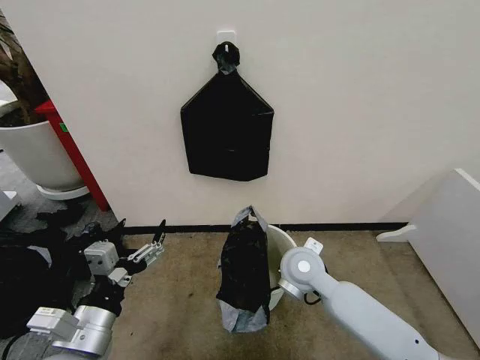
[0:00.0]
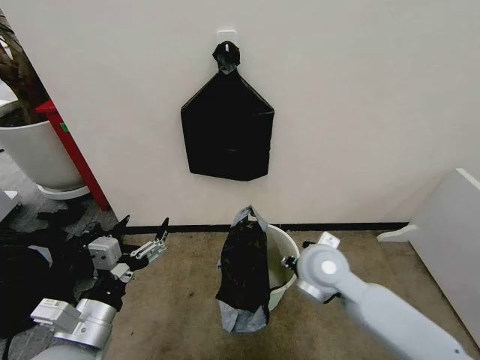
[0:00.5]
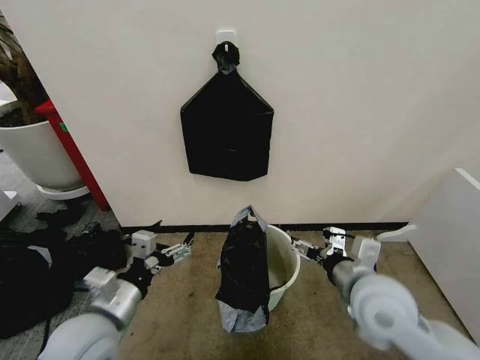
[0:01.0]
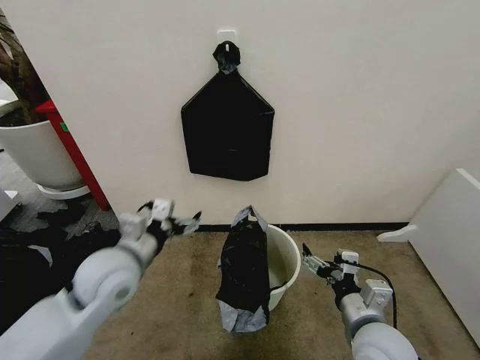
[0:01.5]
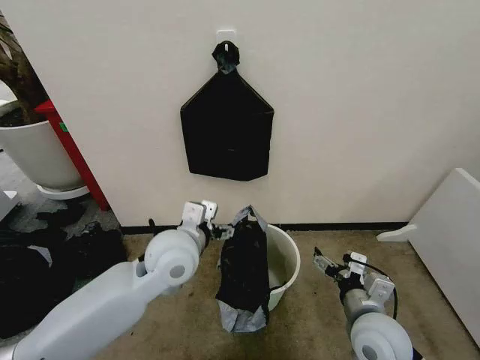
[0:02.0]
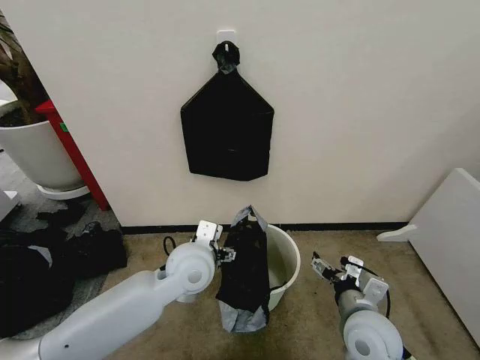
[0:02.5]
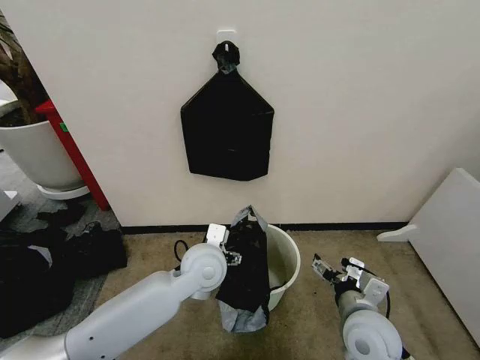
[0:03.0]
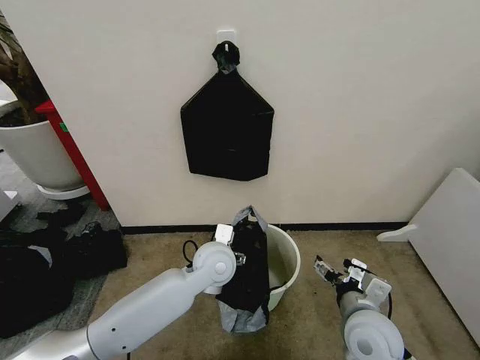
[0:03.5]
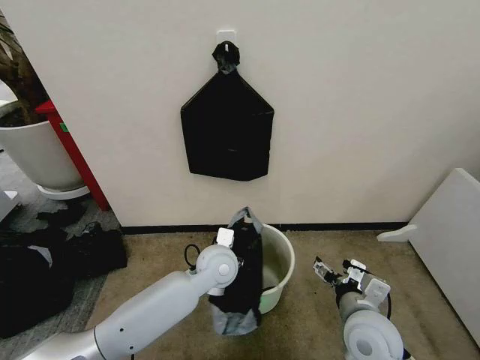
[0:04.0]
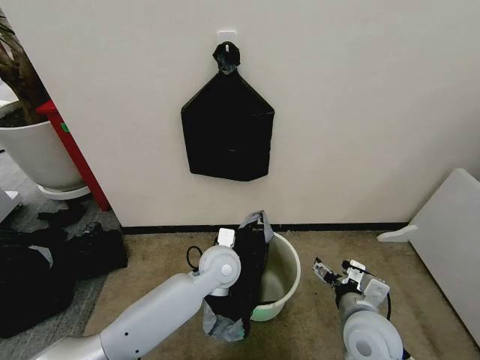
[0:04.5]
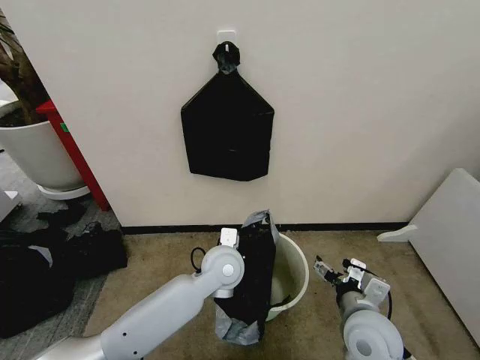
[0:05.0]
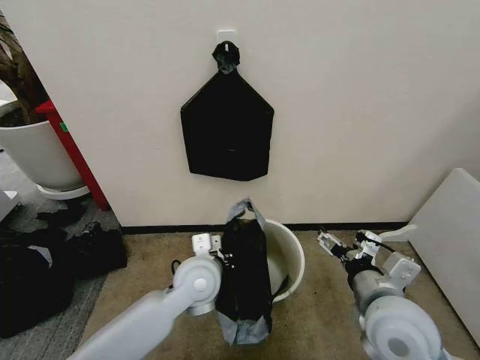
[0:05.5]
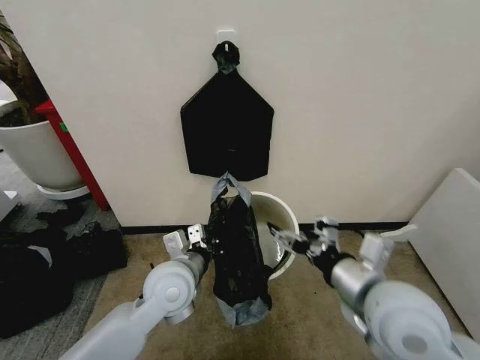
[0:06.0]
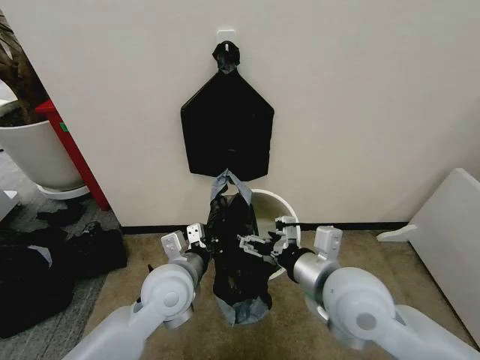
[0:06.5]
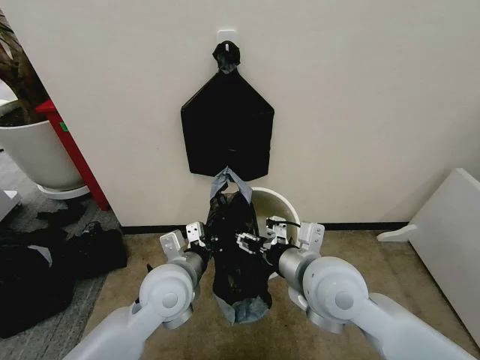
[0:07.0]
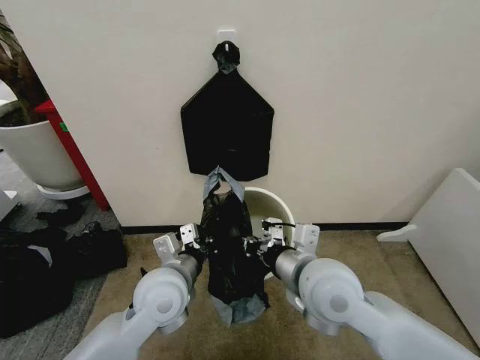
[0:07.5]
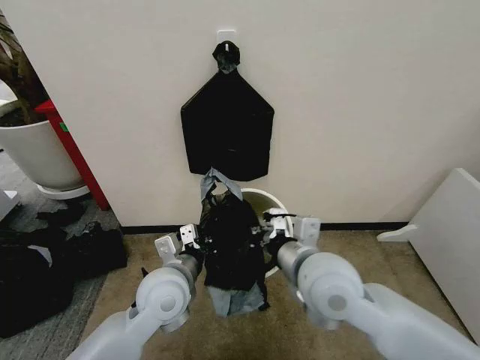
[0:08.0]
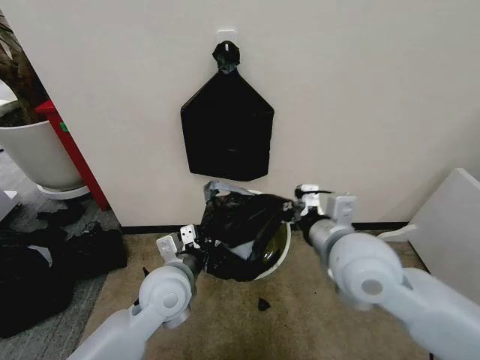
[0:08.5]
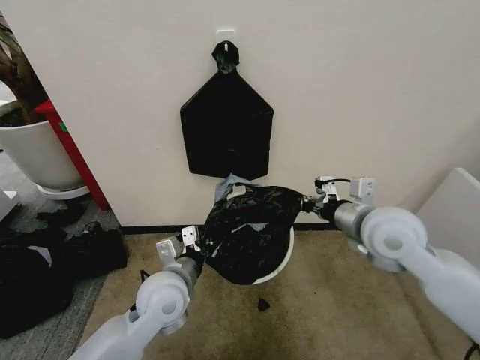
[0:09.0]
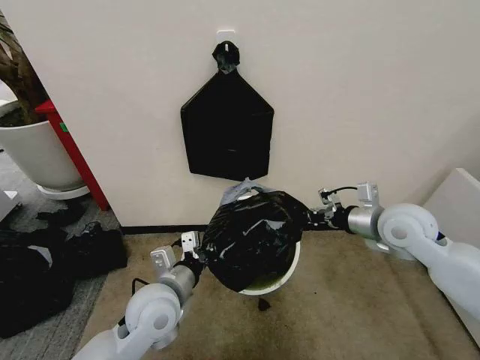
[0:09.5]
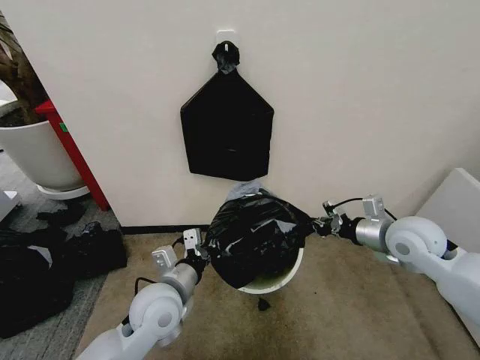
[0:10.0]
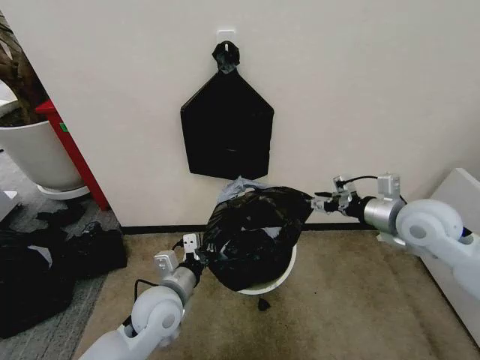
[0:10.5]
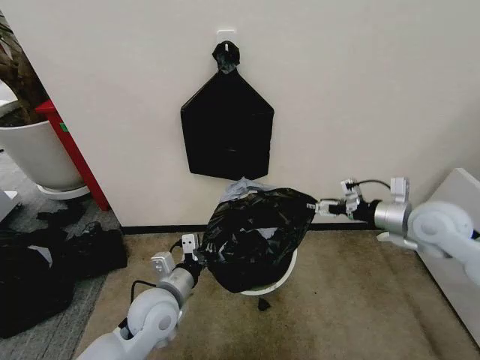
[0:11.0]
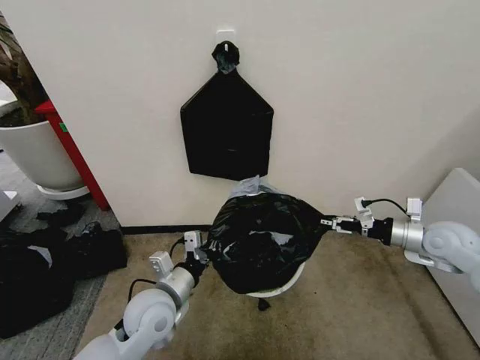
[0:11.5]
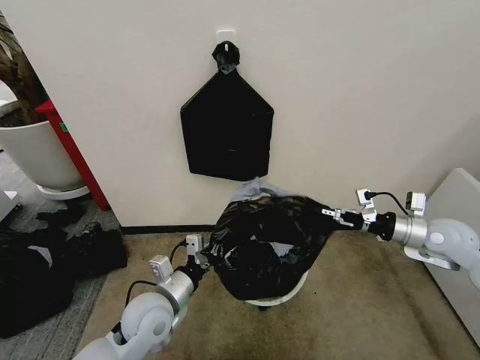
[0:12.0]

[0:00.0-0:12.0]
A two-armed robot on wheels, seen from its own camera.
Task of the whole recording: Place the garbage bag over the trash bin.
0:00.0 to 0:02.0: The left gripper moves forward and to the right, approximately 20 cm. The right gripper travels backward and to the right by some 20 cm, and opens its fingers.
0:02.0 to 0:04.0: The left gripper is displaced downward and to the right by some 15 cm.
0:04.0 to 0:06.0: The right gripper is displaced upward by approximately 15 cm. Meanwhile the left gripper is displaced to the left, backward and upward by roughly 10 cm, and closes up.
0:06.0 to 0:08.0: The right gripper travels to the left and forward by about 10 cm, and closes its fingers.
0:08.0 to 0:10.0: The right gripper moves to the right and forward, roughly 25 cm.
0:10.0 to 0:12.0: The right gripper heads to the right, covering roughly 10 cm, and opens up.

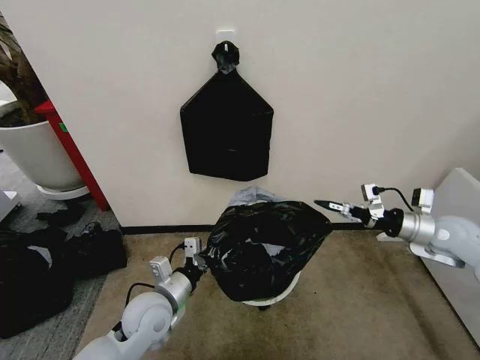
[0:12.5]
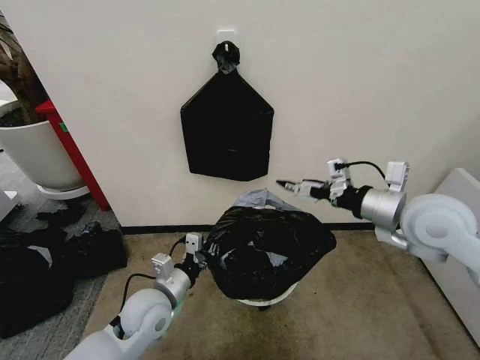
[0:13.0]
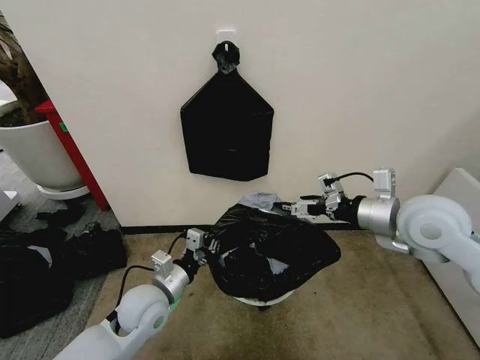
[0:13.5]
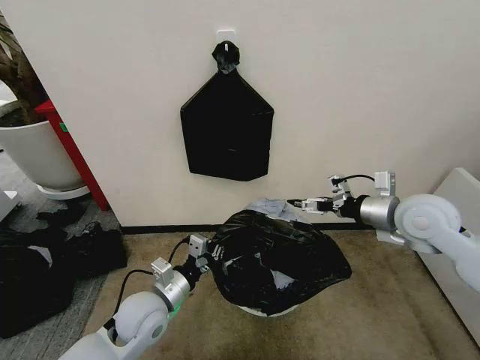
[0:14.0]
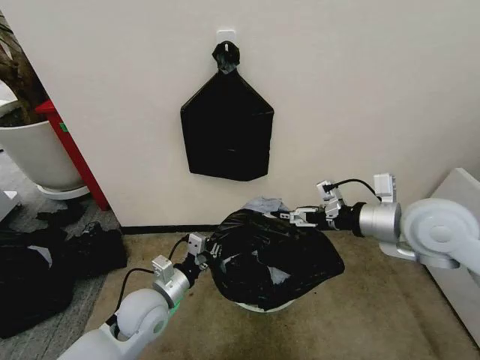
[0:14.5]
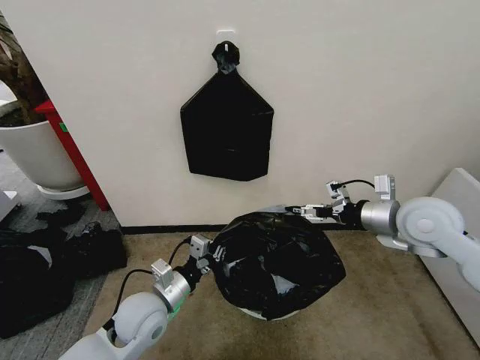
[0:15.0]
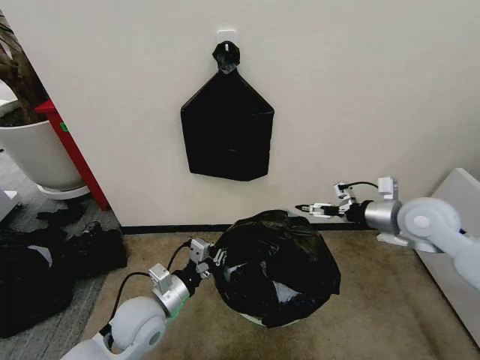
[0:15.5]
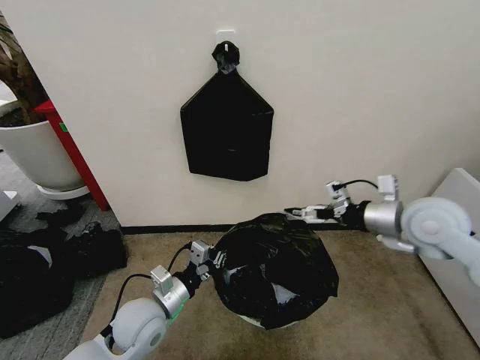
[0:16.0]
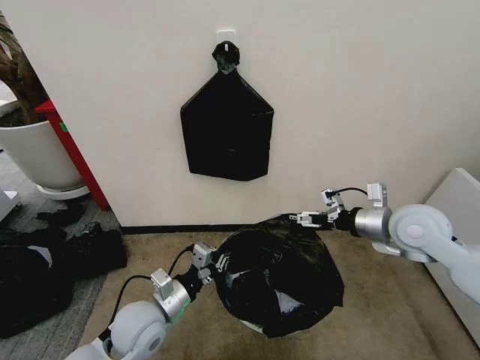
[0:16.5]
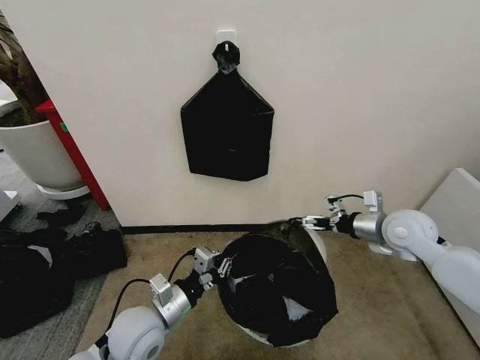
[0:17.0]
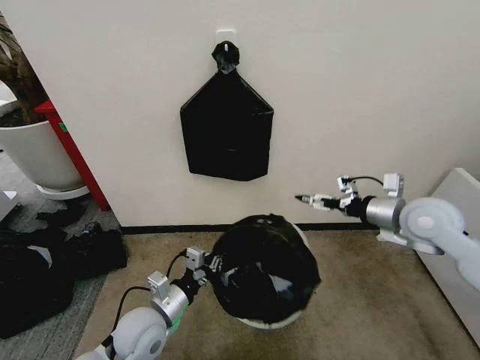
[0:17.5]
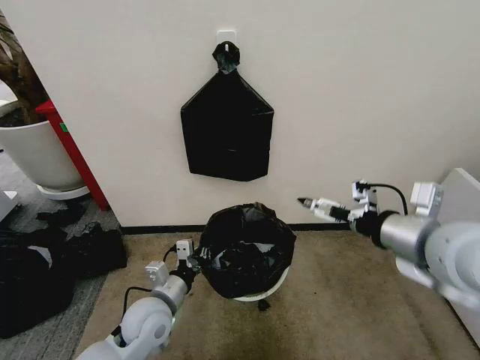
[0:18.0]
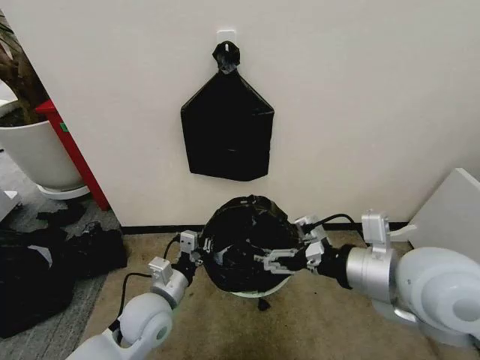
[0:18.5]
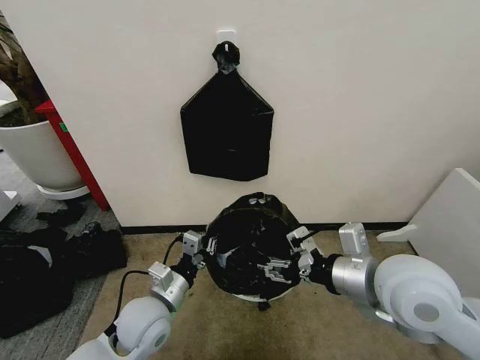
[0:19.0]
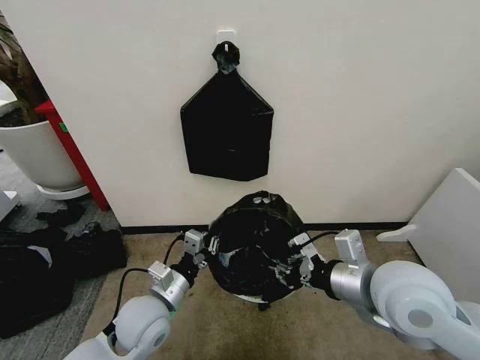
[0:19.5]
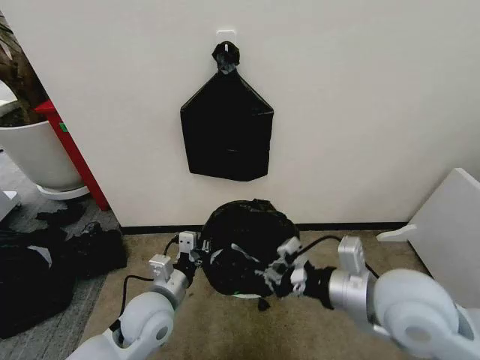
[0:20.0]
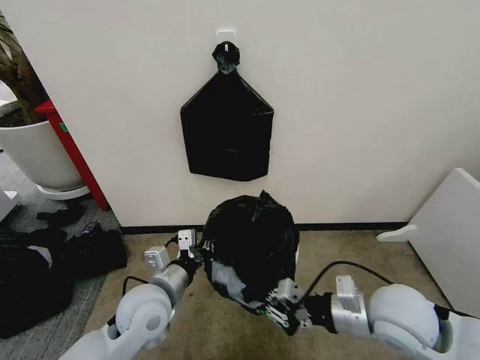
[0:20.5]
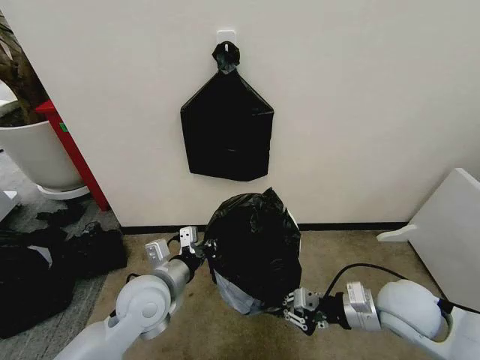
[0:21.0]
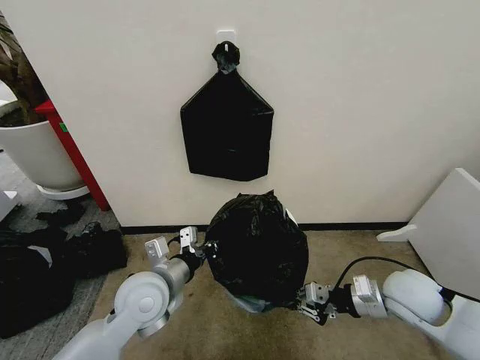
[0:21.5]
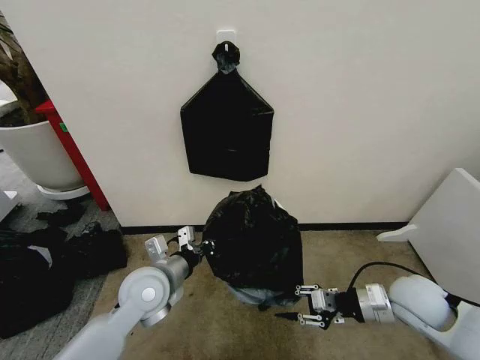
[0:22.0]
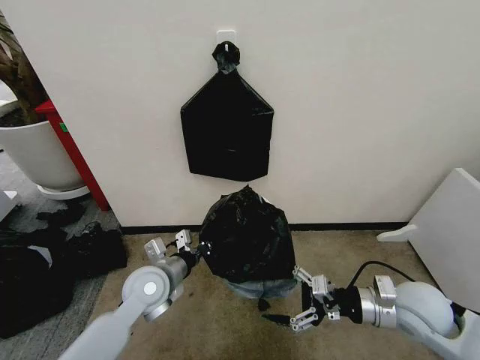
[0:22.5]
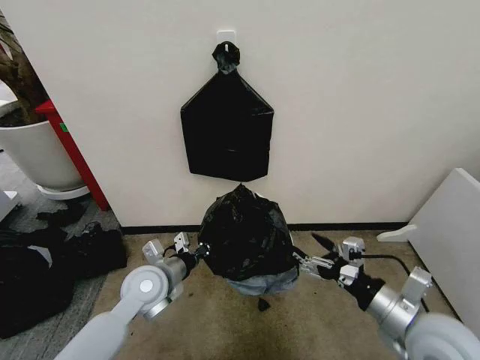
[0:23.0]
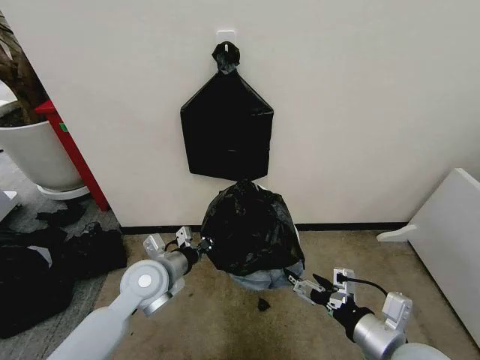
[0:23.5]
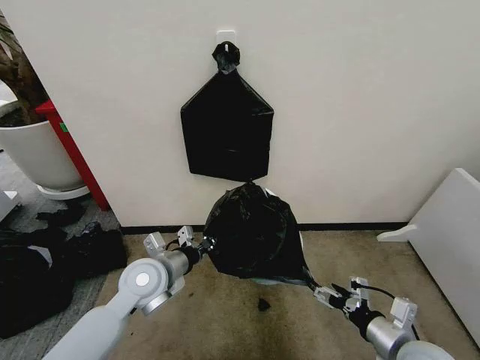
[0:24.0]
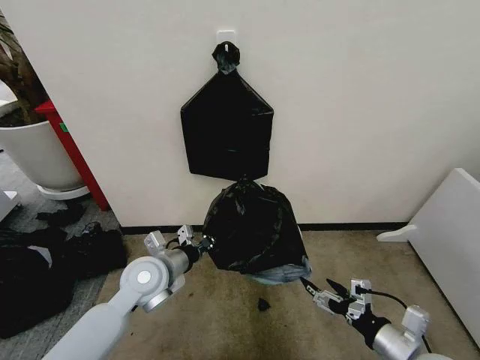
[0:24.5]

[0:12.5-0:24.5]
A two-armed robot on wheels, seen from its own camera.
Task of the whole recording: Place the garbage bag over the trash bin.
0:12.5 to 0:14.5: The right gripper heads to the left and upward, covering roughly 20 cm.
0:14.5 to 0:16.5: The right gripper shifts roughly 5 cm downward.
0:16.5 to 0:18.5: The right gripper shifts some 15 cm backward, to the left and upward.
0:18.5 to 0:20.5: The right gripper is displaced downward by roughly 15 cm, and closes its fingers.
0:20.5 to 0:22.5: The left gripper heads forward, covering approximately 5 cm. Meanwhile the right gripper heads to the right, covering roughly 5 cm, and opens.
0:22.5 to 0:24.5: The right gripper shifts some 10 cm backward.

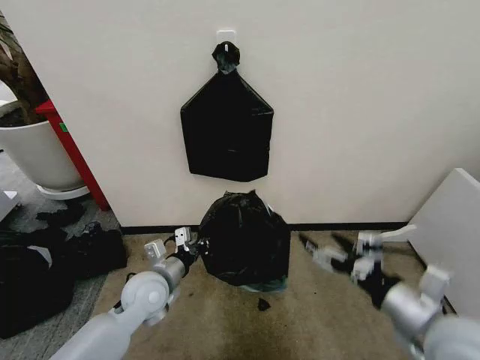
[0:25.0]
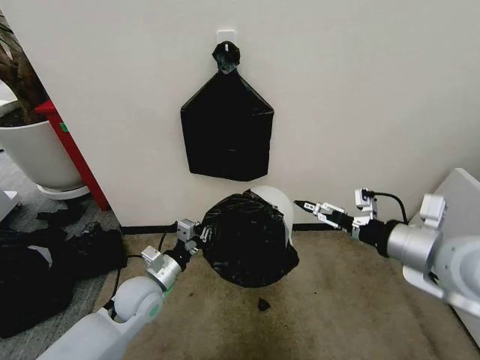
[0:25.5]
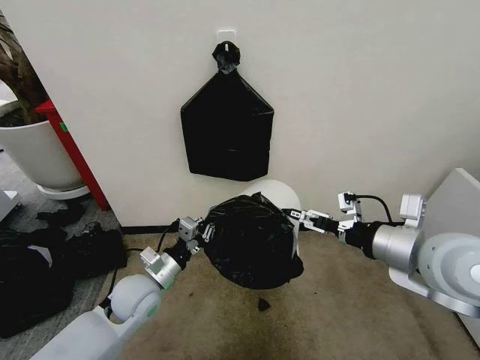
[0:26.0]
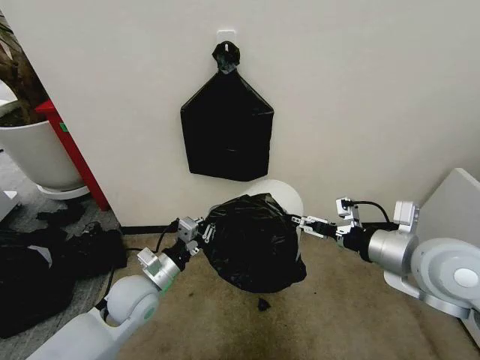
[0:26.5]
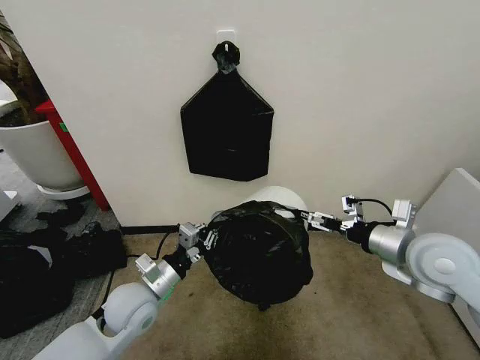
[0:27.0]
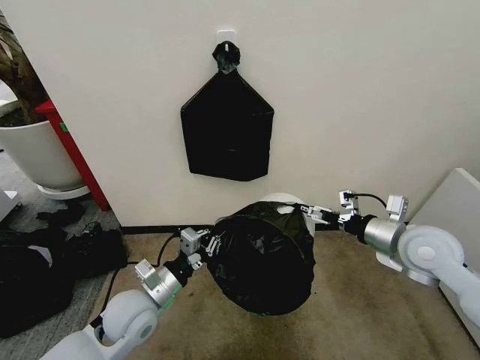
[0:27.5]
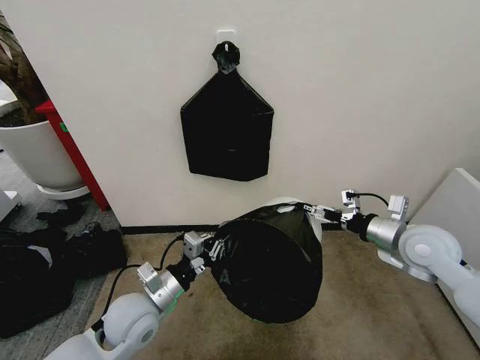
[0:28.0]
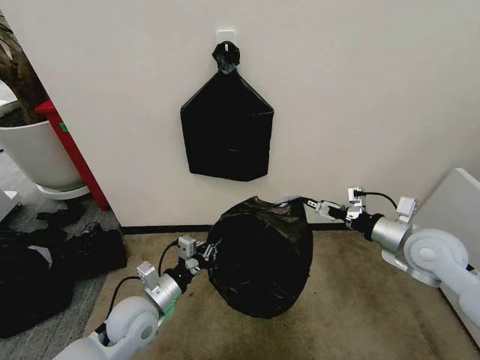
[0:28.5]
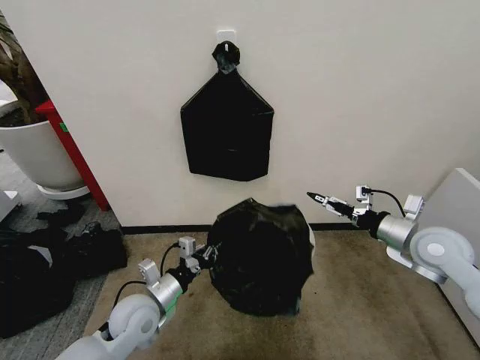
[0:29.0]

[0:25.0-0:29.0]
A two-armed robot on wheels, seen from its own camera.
Task of the whole recording: Place the garbage bag over the trash bin.
0:25.0 to 0:27.0: The right gripper heads forward, covering some 15 cm.
0:27.0 to 0:29.0: The right gripper travels to the right by some 5 cm.
